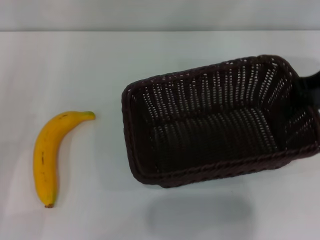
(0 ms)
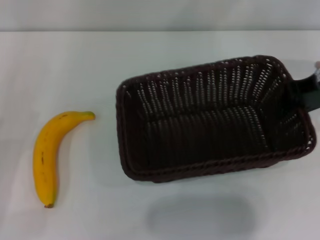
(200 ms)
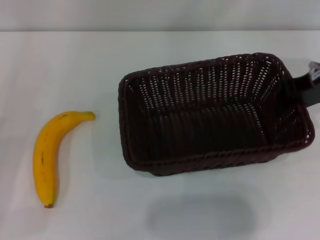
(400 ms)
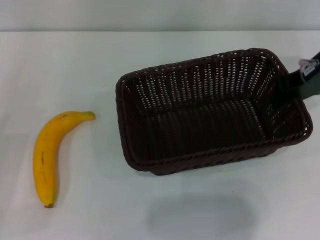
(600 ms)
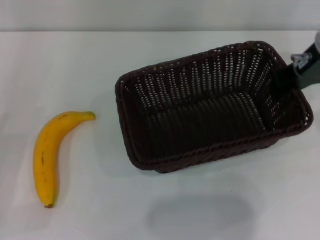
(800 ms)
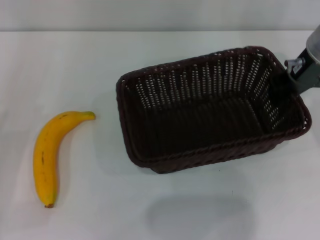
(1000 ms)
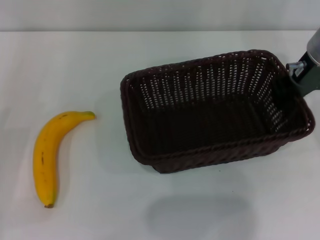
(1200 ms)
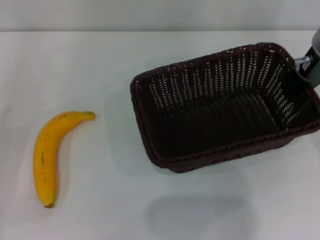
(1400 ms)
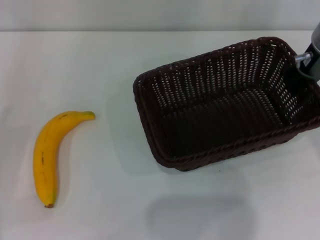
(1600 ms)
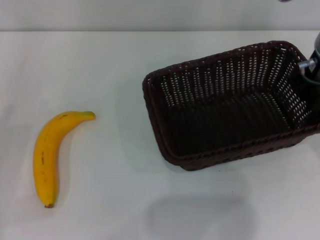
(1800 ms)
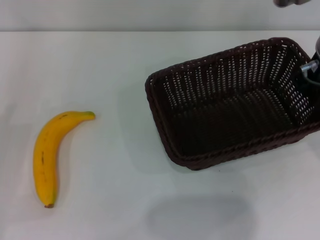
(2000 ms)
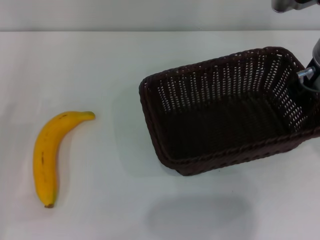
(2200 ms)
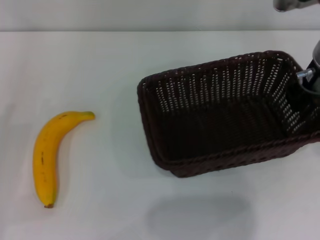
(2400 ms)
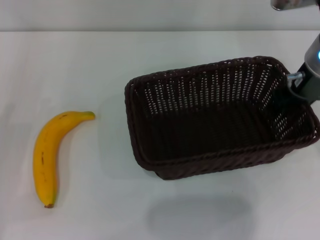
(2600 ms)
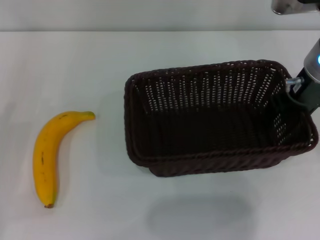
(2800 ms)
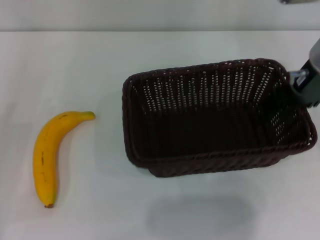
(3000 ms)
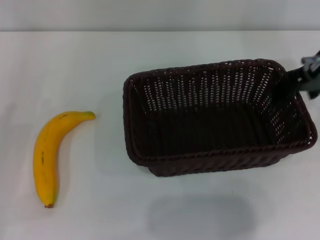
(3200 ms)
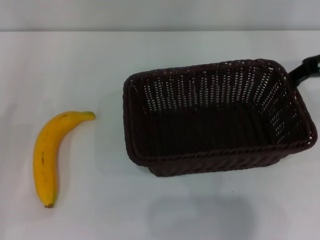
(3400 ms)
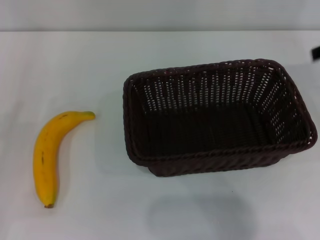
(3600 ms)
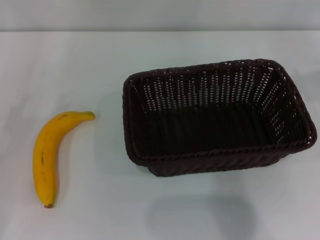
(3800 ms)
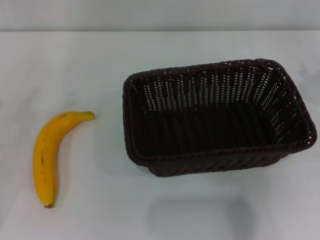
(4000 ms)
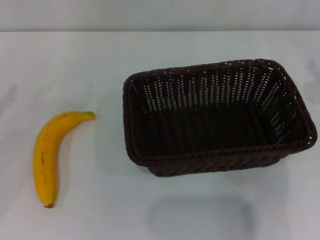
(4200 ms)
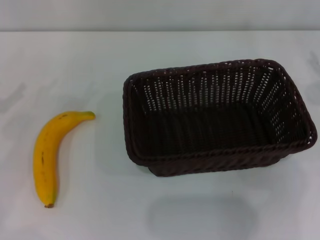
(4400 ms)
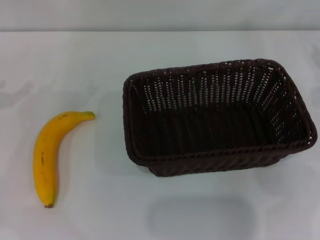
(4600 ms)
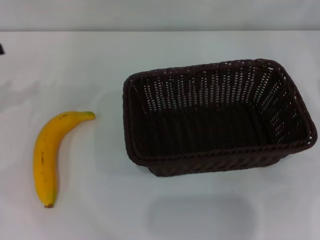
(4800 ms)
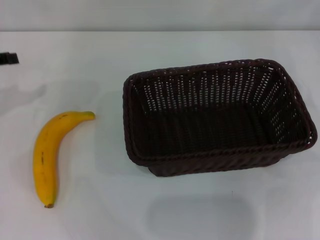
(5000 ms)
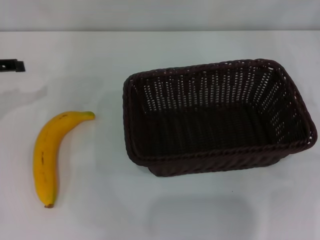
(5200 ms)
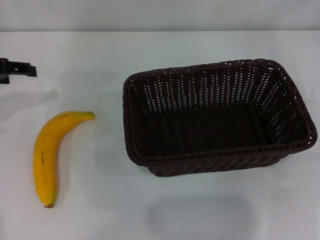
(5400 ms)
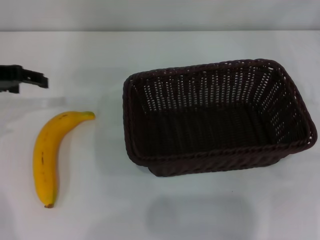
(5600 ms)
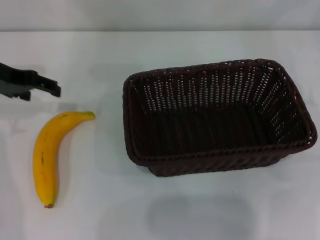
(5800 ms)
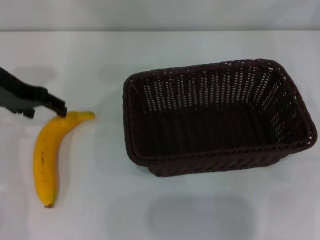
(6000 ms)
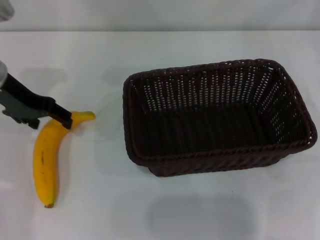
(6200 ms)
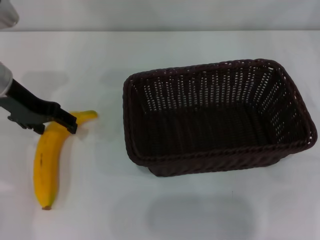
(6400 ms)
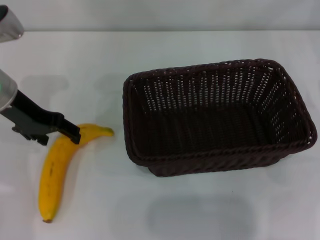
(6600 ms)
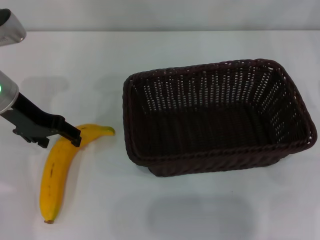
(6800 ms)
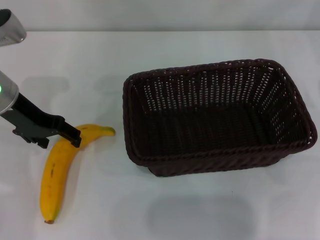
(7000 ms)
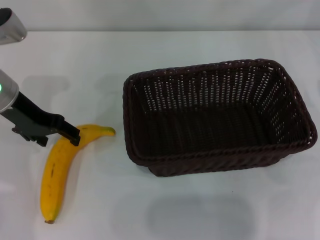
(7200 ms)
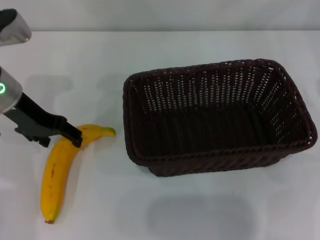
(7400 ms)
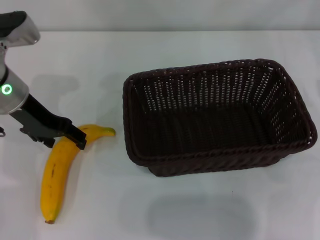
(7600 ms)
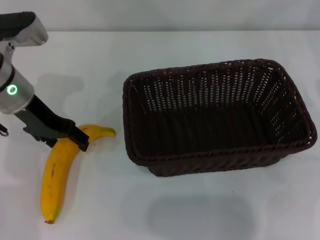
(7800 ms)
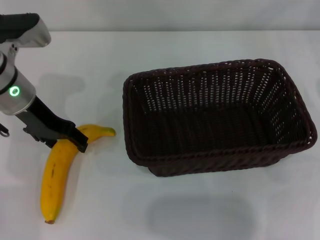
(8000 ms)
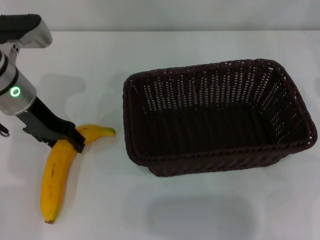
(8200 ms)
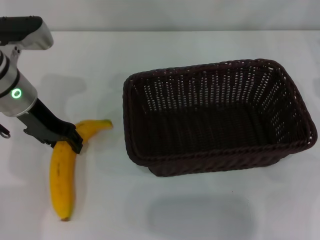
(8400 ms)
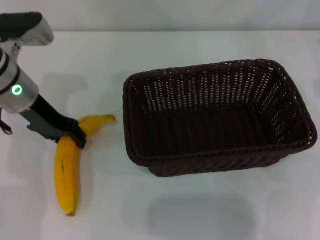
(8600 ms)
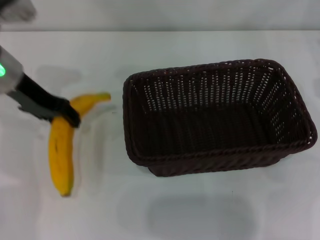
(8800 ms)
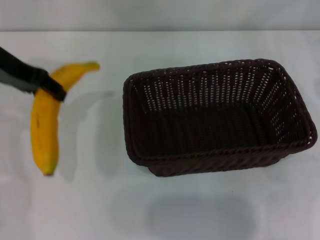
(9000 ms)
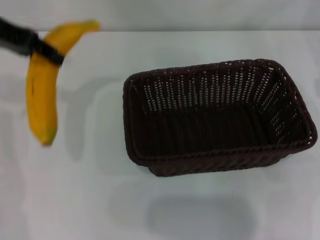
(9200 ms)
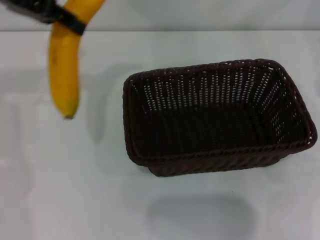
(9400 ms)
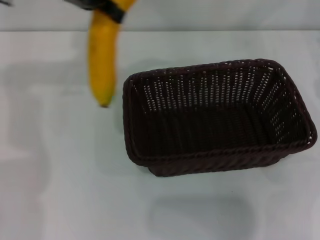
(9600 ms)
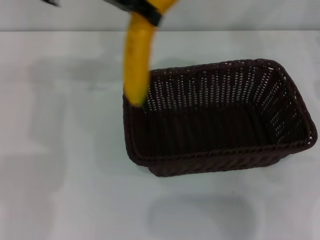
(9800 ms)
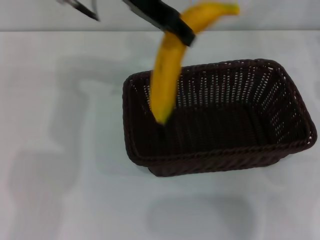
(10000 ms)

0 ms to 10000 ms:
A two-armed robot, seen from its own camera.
Step, 0 ms to 3400 ms: Place the dark basket in the center of view with the right gripper.
Step, 3600 ms to 9000 ms: Pick up the banana with the left gripper.
0 ms to 1400 ms: The right gripper travels to the left by some 5 cm.
1400 ms to 2800 ms: The right gripper opens its fingers.
2800 ms to 4200 ms: The left gripper travels forward by about 5 cm; the right gripper goes about 15 cm to the right, and opens.
4200 ms to 5800 ms: The left gripper shifts some 20 cm forward, to the right and upward.
5800 ms to 7200 ms: The left gripper shifts by roughly 5 cm.
7200 ms to 8600 ms: The left gripper closes its fingers.
8600 ms to 10000 ms: The left gripper travels upward and to the right by roughly 20 cm.

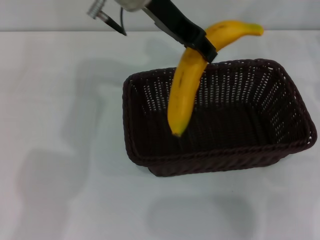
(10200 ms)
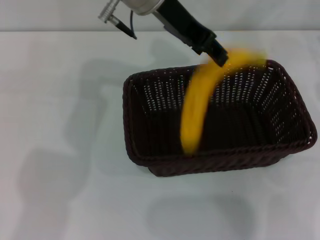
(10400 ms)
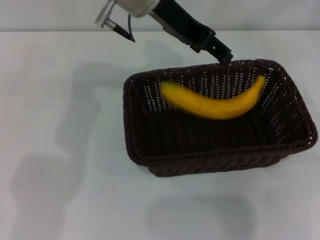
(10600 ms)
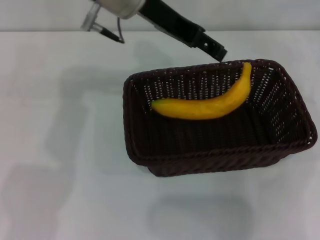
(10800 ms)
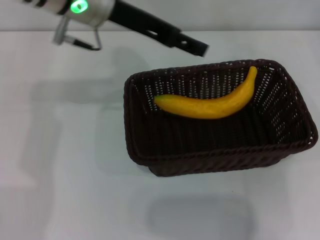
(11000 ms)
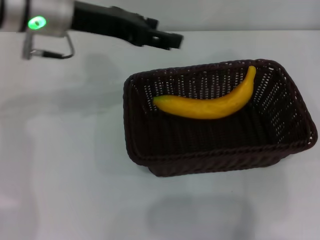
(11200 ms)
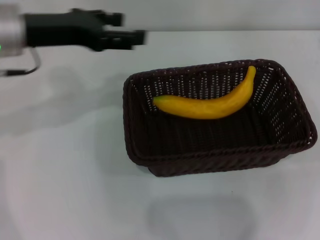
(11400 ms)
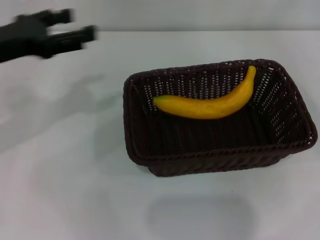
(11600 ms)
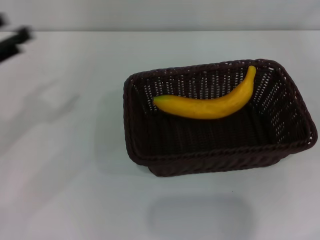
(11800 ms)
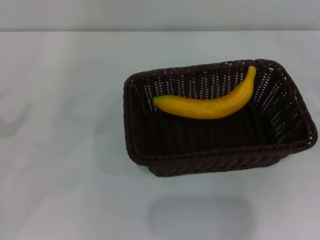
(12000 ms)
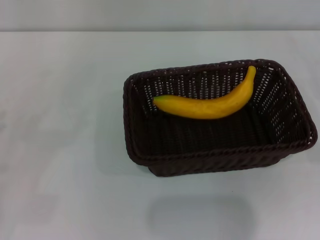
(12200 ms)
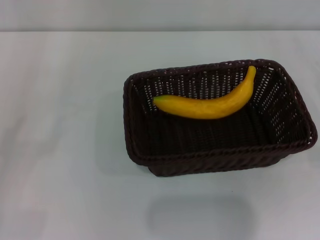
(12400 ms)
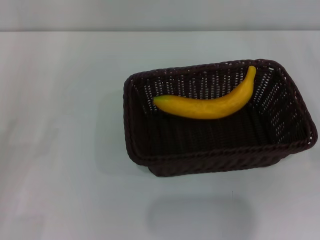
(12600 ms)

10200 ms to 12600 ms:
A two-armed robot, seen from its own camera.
10200 ms to 11400 ms: The right gripper is displaced upward and to the right by about 10 cm, while the left gripper travels to the left by some 15 cm, and opens up.
11400 ms to 12600 ms: The left gripper is displaced backward, to the left and downward by roughly 30 cm. Meanwhile the right gripper shifts approximately 20 cm downward and backward.
